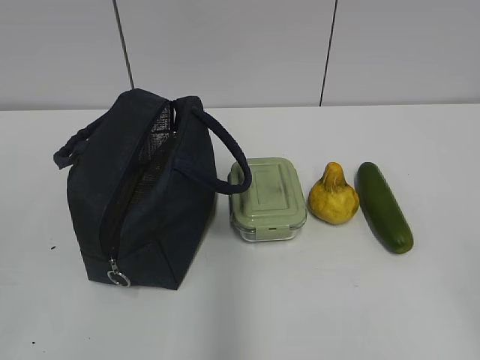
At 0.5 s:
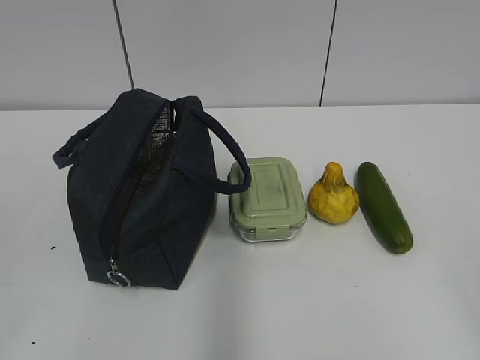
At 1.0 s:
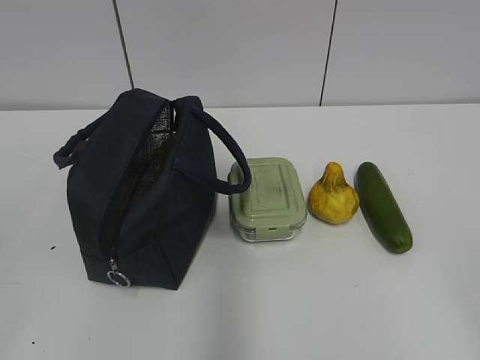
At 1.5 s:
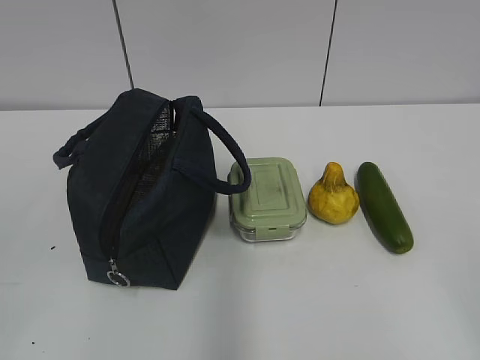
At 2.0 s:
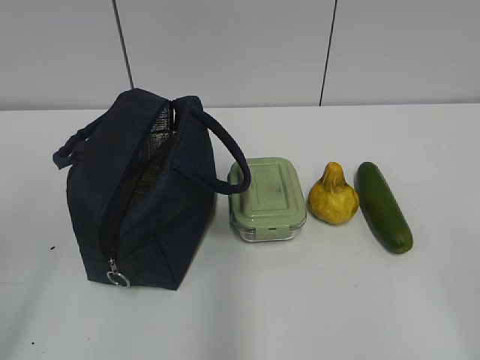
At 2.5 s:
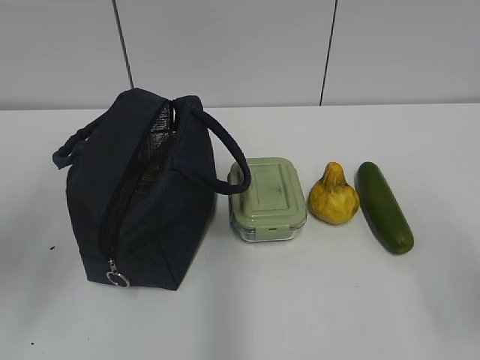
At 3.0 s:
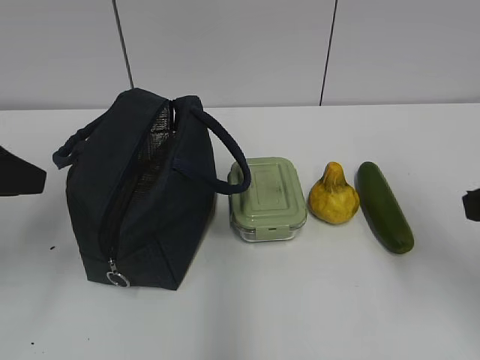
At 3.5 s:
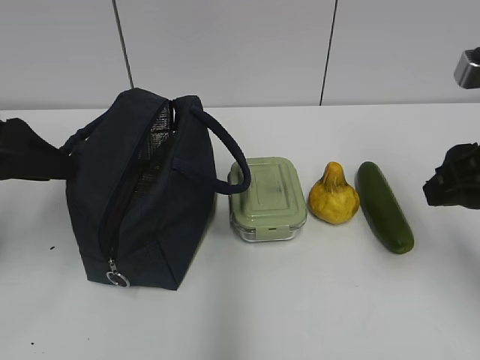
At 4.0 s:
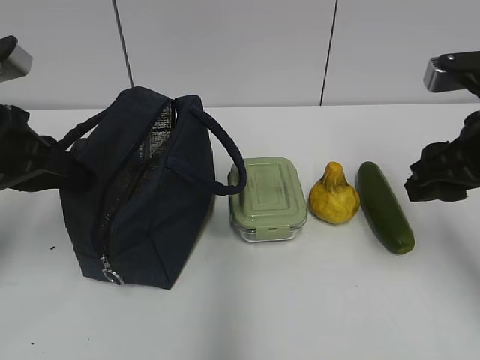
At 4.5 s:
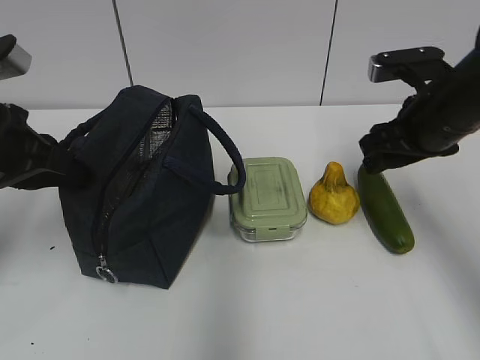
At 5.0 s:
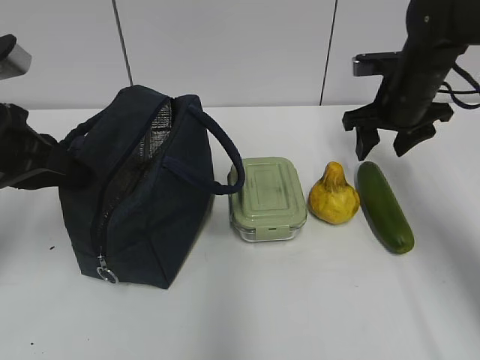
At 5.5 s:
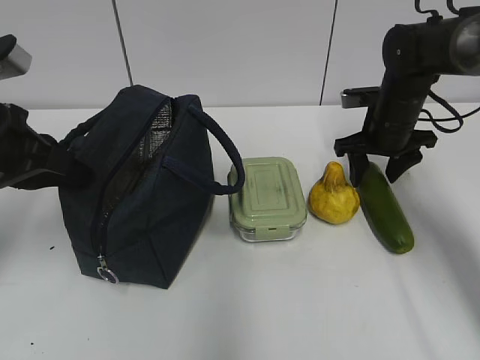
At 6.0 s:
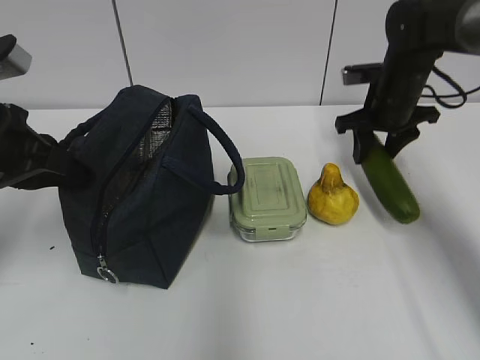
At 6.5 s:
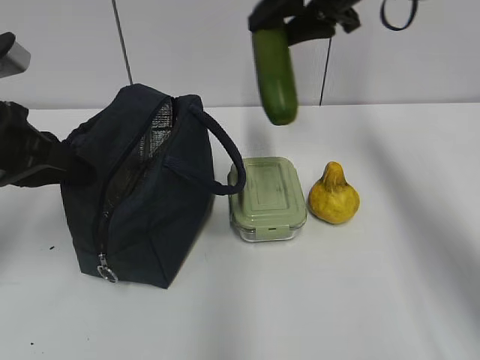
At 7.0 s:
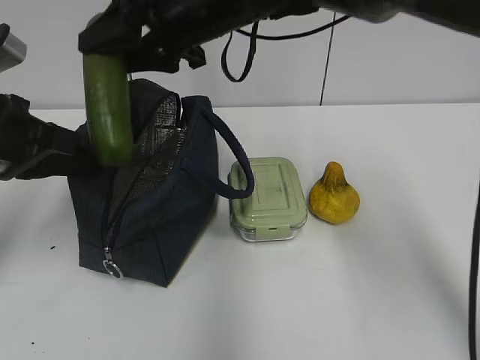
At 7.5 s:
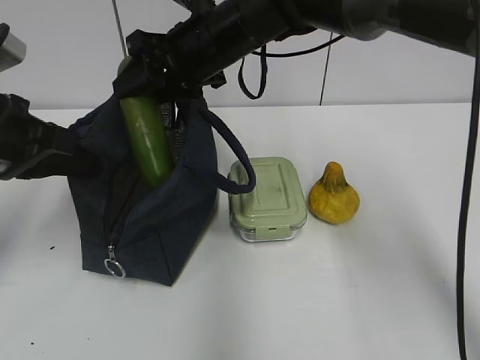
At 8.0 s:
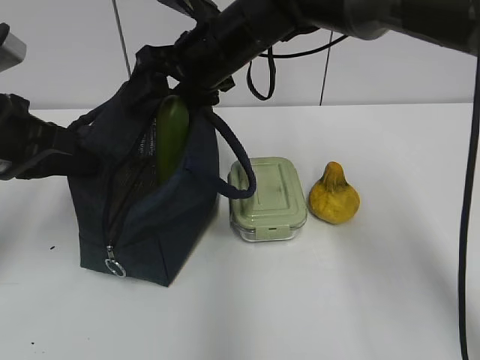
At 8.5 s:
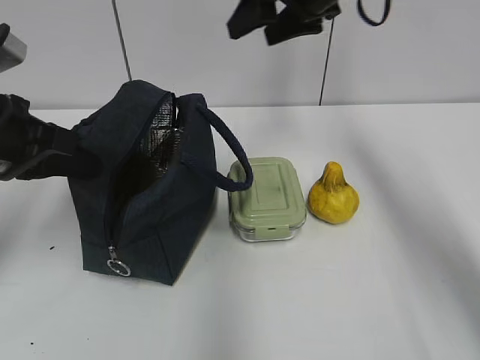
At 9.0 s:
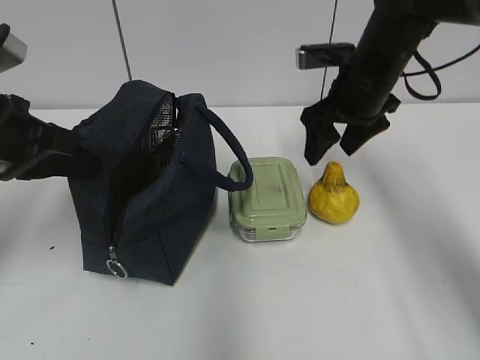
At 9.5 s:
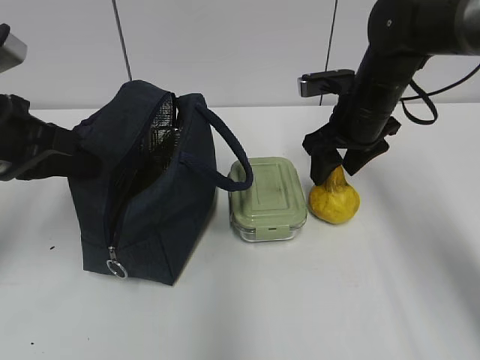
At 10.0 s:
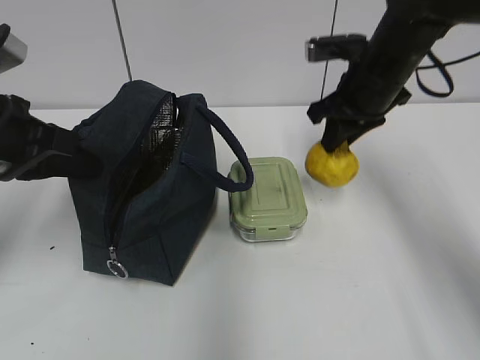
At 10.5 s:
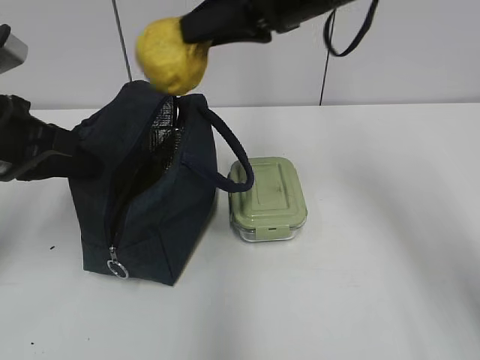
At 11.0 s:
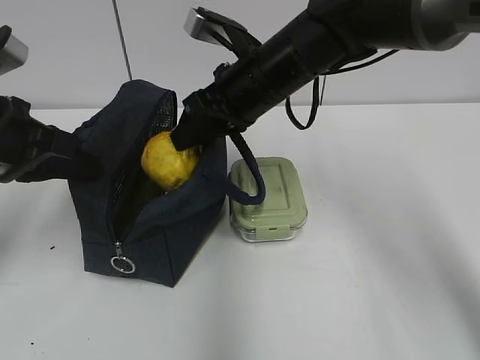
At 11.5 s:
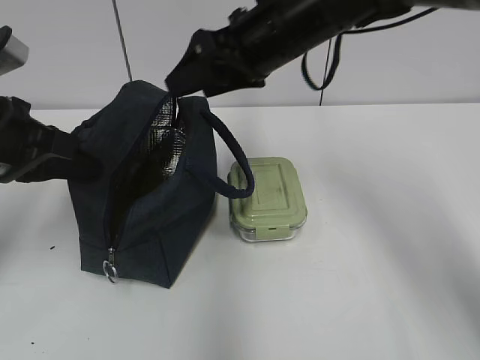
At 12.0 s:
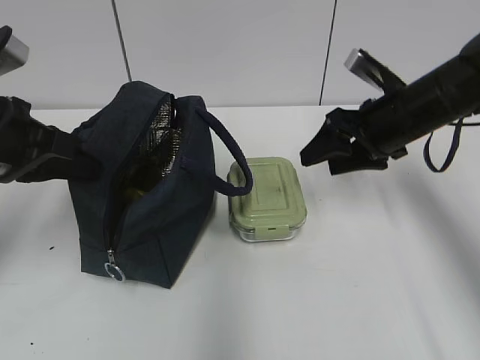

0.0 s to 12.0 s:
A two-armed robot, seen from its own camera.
2.0 to 4.0 s: The grippers both shift forward by roughly 25 cm. The left gripper closes.
4.0 to 6.0 s: The right gripper shifts some 20 cm forward.
6.0 to 8.0 s: The right gripper goes some 20 cm to the left.
8.0 to 10.0 s: The right gripper is displaced to the right by some 15 cm, and closes up.
10.0 to 12.0 s: The right gripper heads downward, covering some 10 cm, reaches some 15 cm to the left, then returns, and opens up.

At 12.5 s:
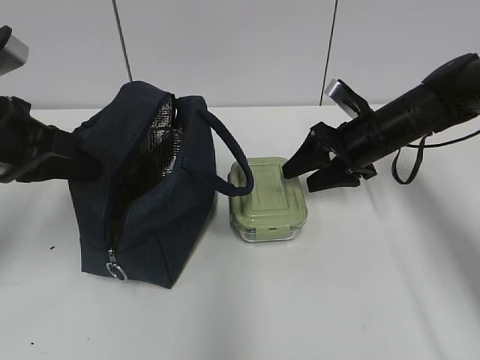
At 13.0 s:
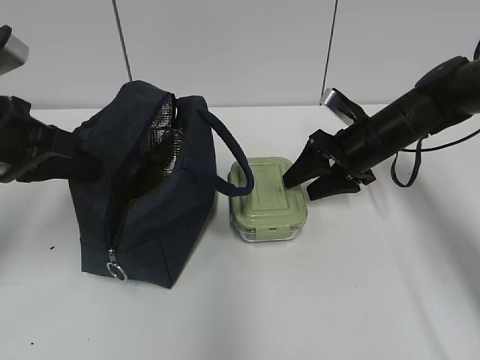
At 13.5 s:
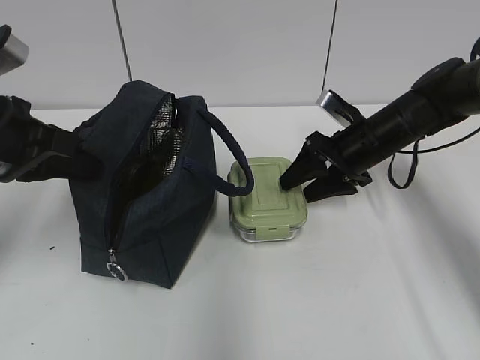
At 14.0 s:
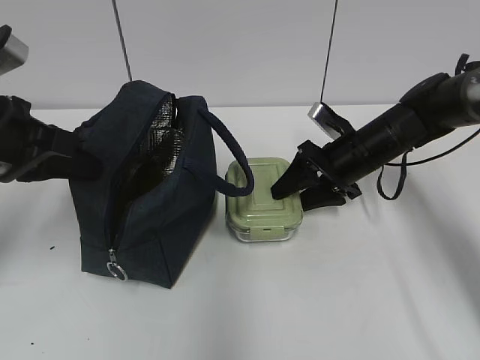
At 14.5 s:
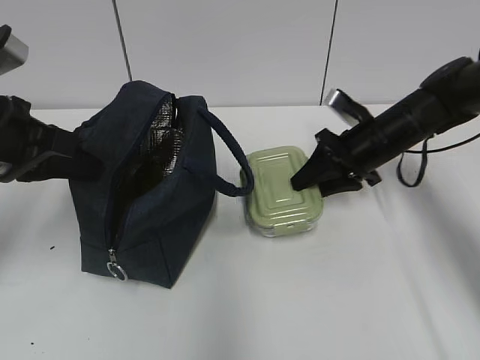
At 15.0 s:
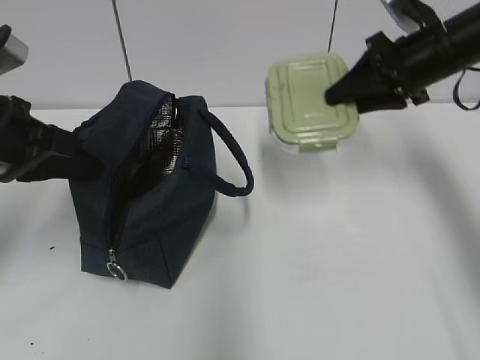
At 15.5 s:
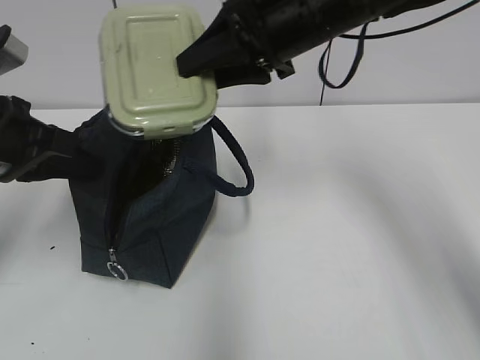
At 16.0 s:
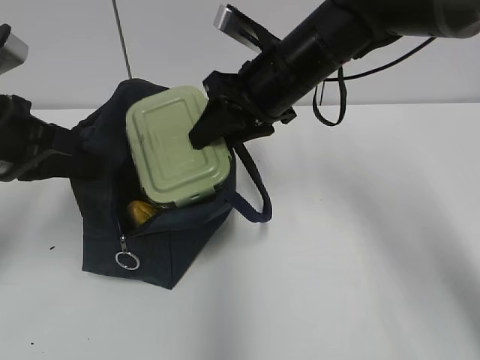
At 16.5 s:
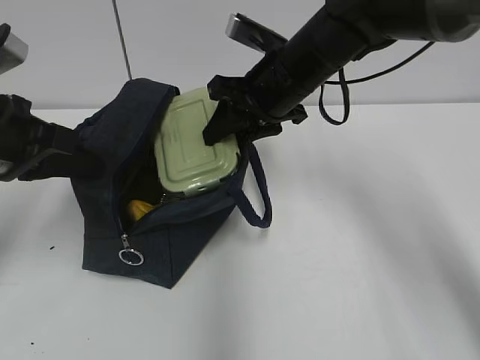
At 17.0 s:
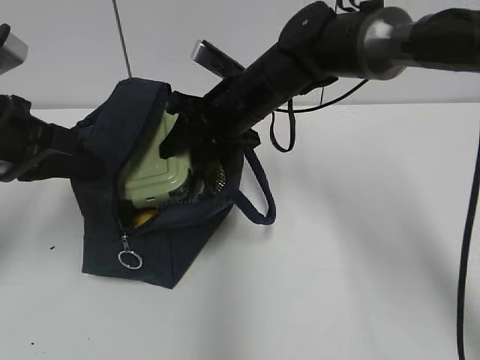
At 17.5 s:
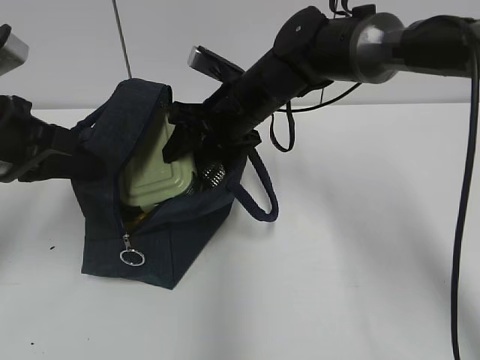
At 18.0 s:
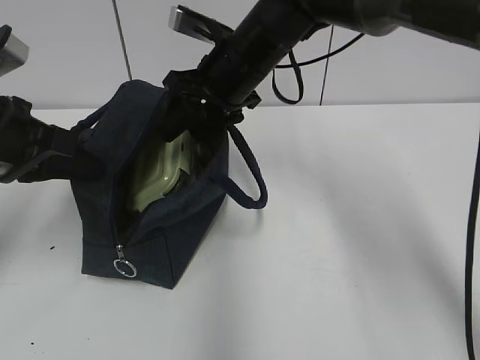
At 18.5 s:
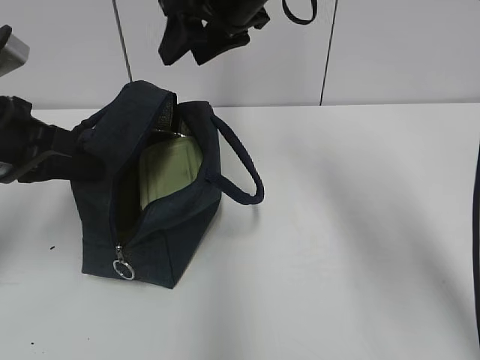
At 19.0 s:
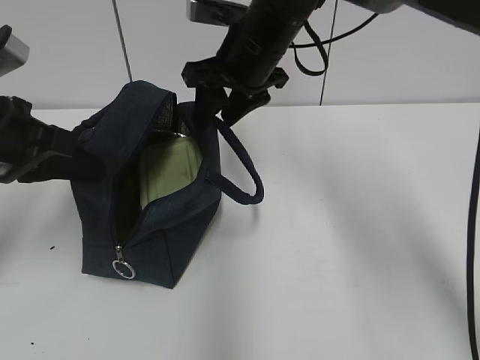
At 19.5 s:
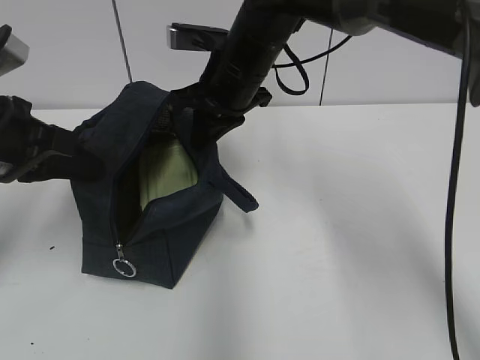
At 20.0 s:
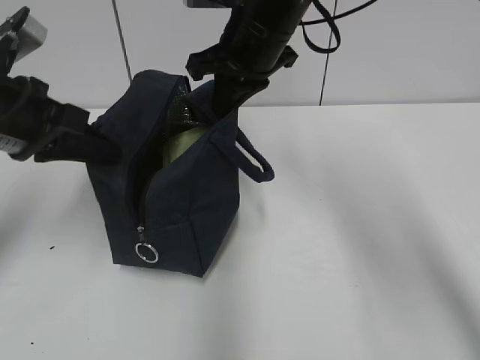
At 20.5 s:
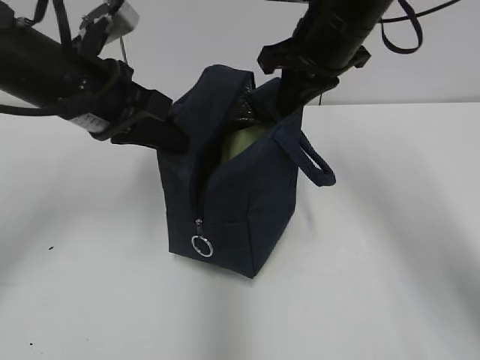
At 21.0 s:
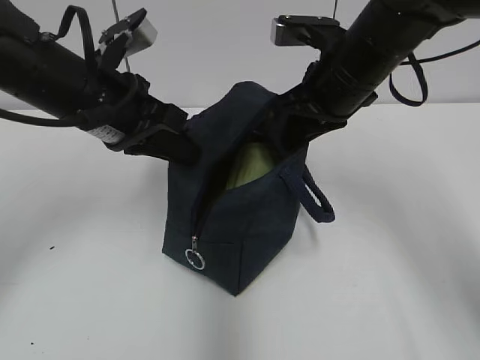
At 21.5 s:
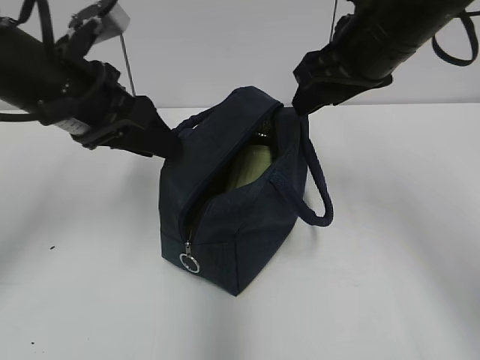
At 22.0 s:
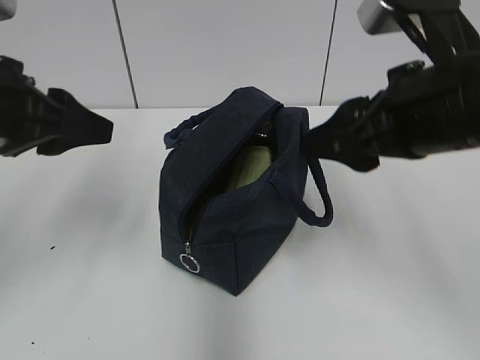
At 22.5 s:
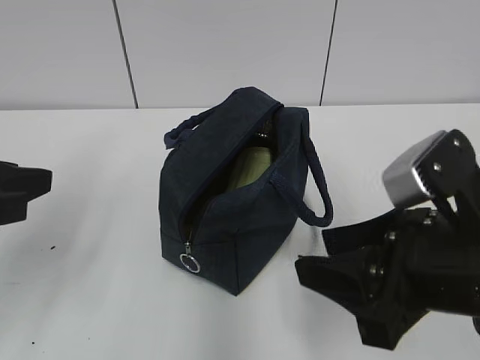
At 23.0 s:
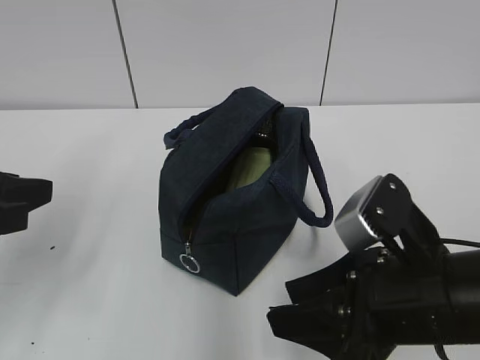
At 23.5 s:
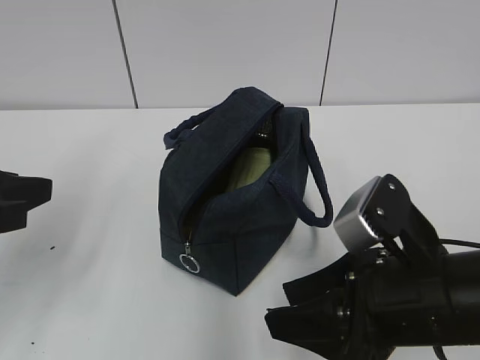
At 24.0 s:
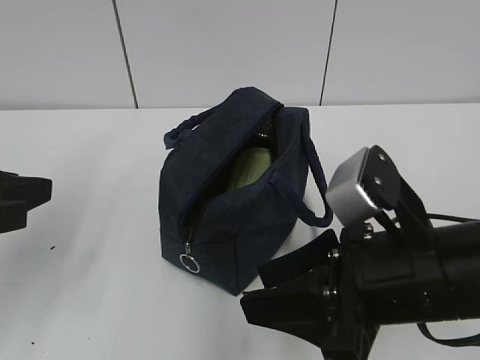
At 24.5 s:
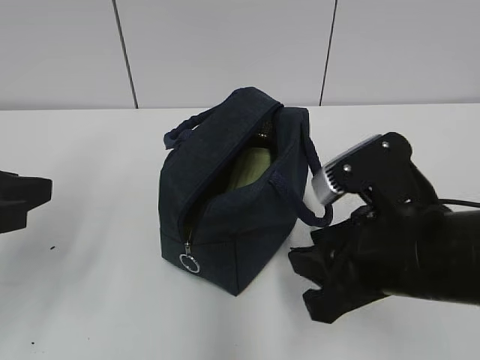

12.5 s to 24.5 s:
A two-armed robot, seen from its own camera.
12.5 to 14.5 s: The right gripper closes.
14.5 to 16.5 s: The right gripper moves to the left and upward, roughly 20 cm.
16.5 to 18.5 s: The right gripper travels upward by roughly 10 cm.
18.5 to 20.5 s: Both grippers move to the right, roughly 10 cm. The right gripper closes.
20.5 to 22.5 s: The right gripper shifts about 20 cm backward, and opens; the left gripper moves backward and to the left, roughly 15 cm, and opens.
22.5 to 24.5 s: The grippers stay close to where they were, moving slightly.

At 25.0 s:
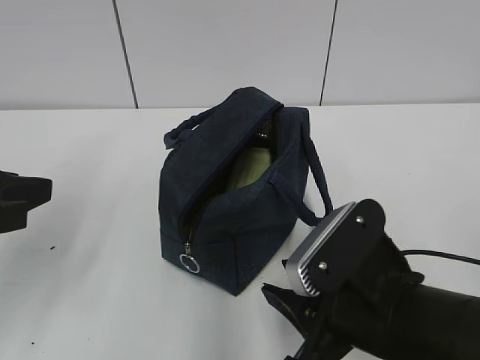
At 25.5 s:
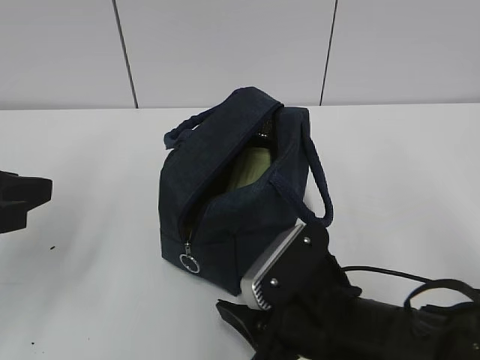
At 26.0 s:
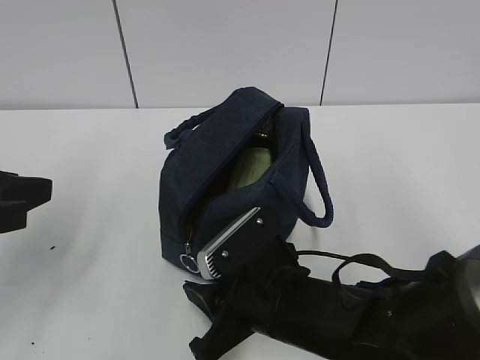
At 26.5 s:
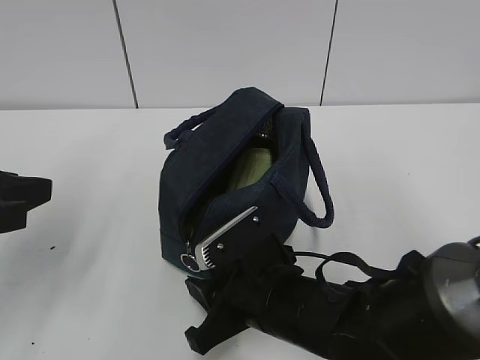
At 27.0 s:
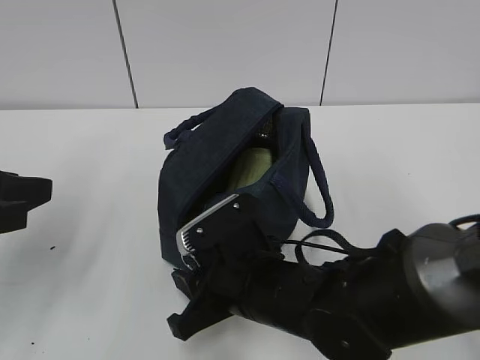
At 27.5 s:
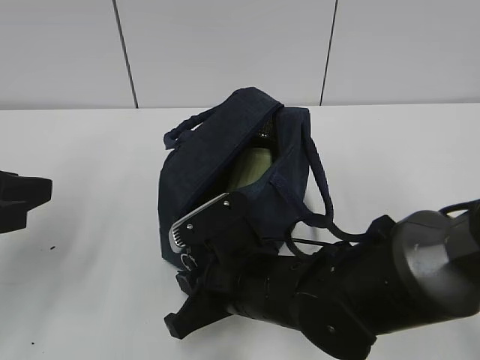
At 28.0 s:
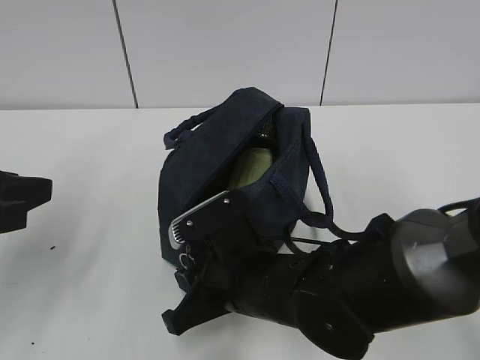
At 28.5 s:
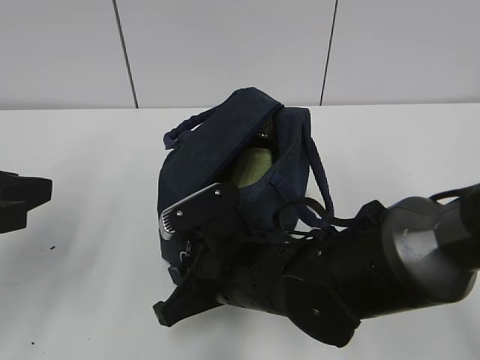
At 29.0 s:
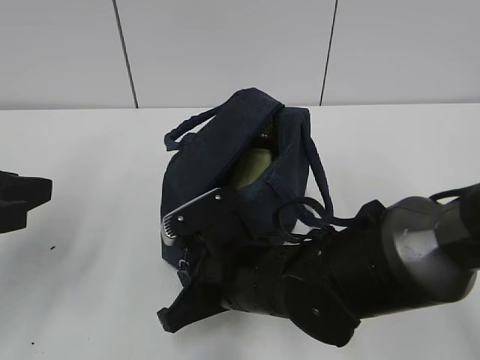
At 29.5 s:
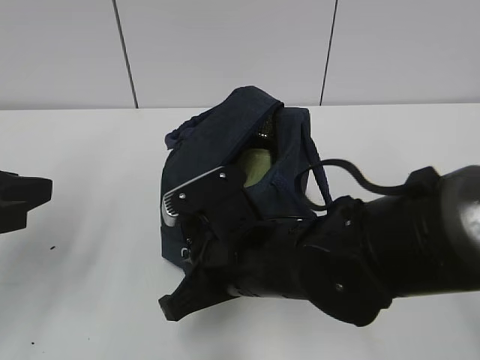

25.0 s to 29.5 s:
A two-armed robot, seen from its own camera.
25.0 to 27.0 s: The right gripper heads to the left and forward, covering roughly 10 cm.
27.0 to 29.5 s: The right gripper closes.
